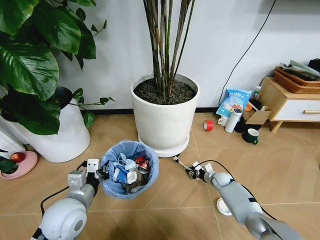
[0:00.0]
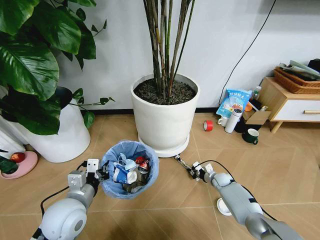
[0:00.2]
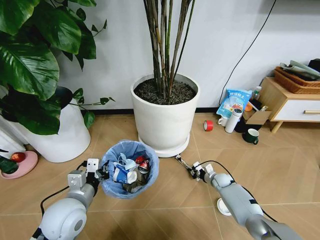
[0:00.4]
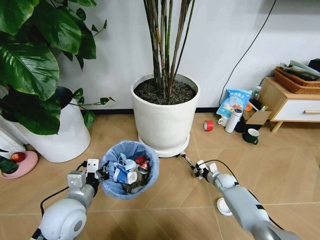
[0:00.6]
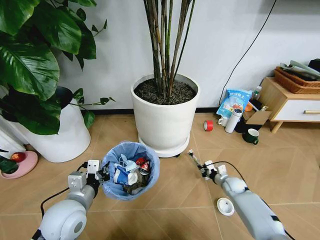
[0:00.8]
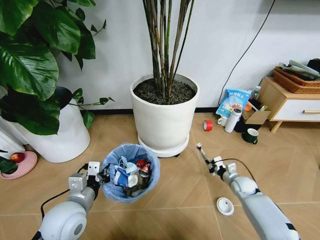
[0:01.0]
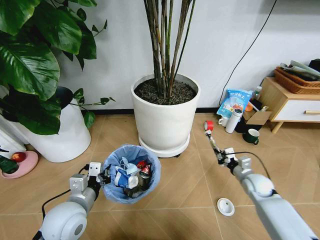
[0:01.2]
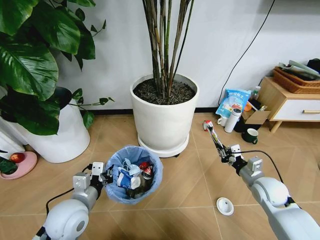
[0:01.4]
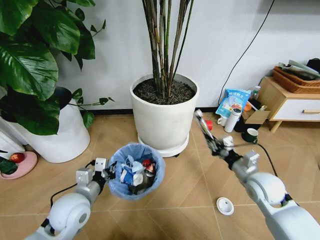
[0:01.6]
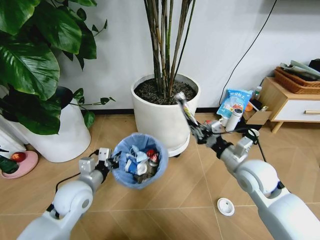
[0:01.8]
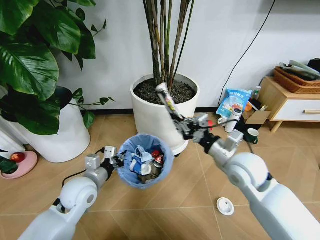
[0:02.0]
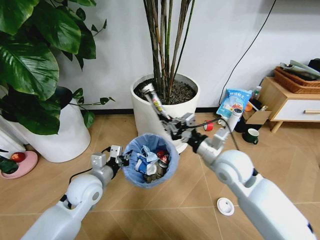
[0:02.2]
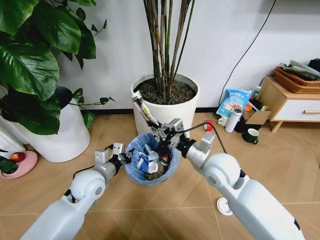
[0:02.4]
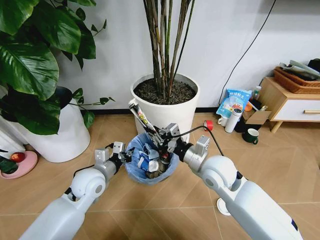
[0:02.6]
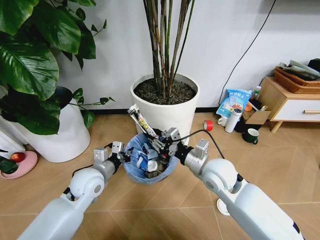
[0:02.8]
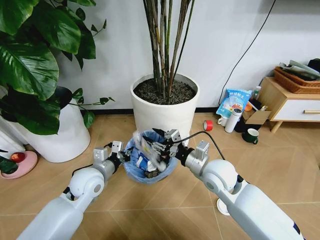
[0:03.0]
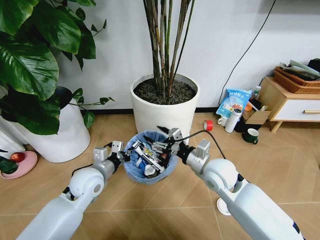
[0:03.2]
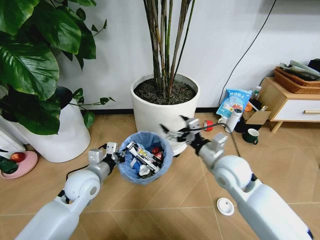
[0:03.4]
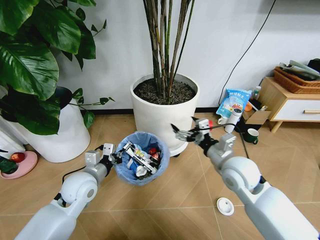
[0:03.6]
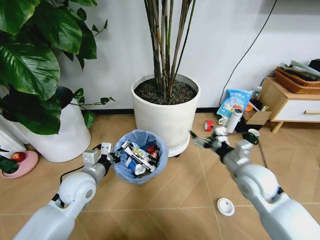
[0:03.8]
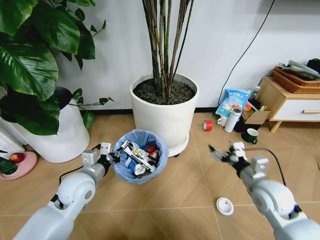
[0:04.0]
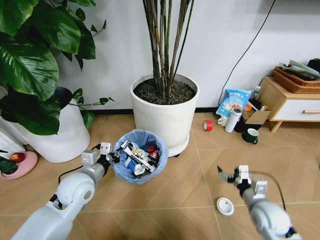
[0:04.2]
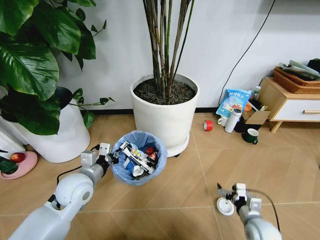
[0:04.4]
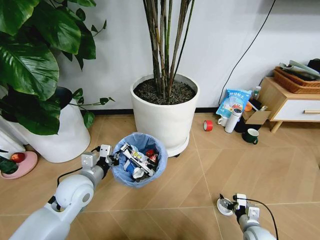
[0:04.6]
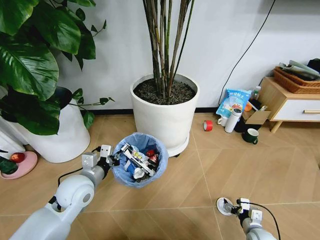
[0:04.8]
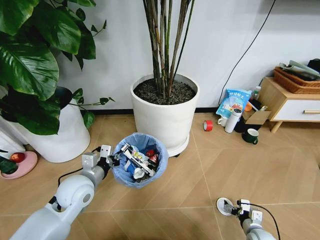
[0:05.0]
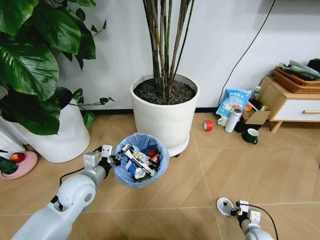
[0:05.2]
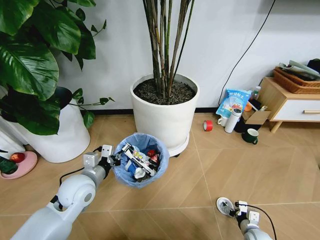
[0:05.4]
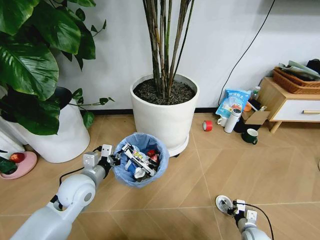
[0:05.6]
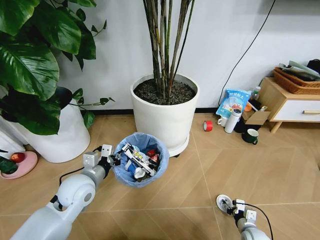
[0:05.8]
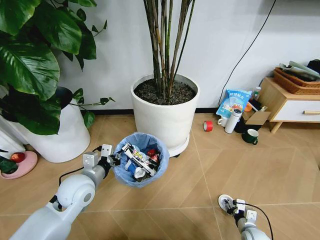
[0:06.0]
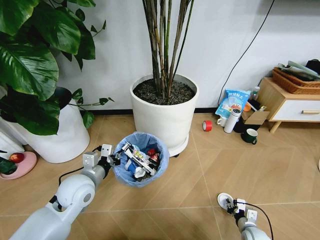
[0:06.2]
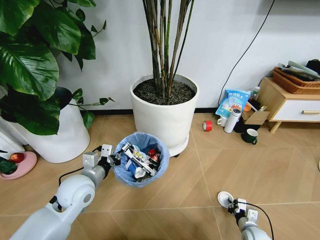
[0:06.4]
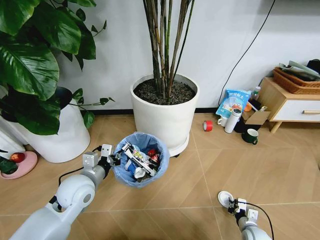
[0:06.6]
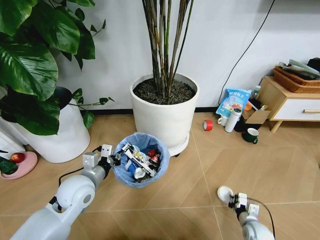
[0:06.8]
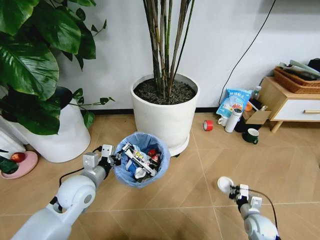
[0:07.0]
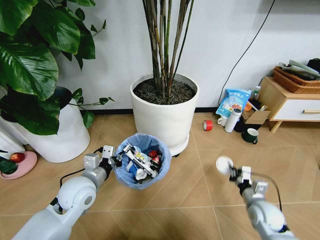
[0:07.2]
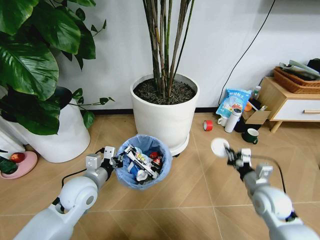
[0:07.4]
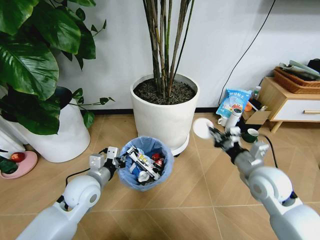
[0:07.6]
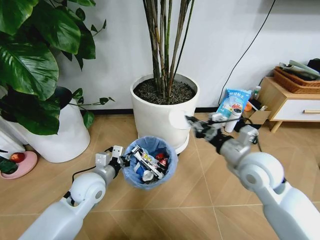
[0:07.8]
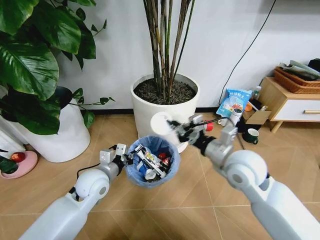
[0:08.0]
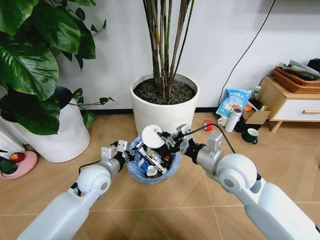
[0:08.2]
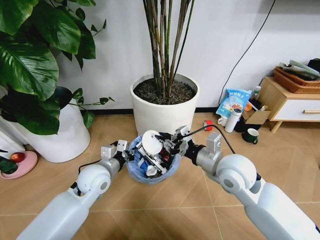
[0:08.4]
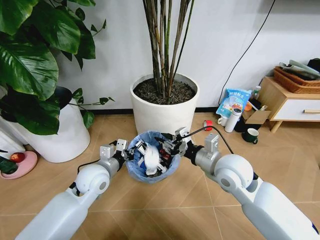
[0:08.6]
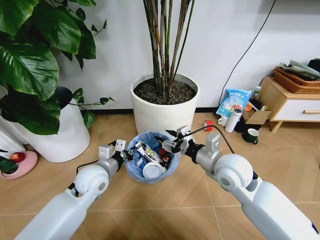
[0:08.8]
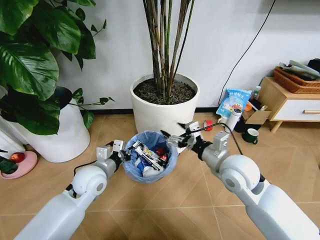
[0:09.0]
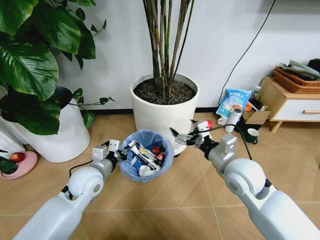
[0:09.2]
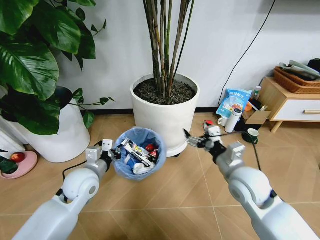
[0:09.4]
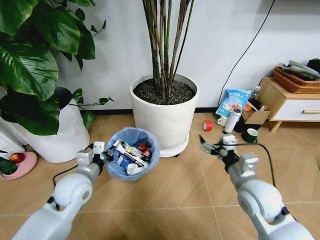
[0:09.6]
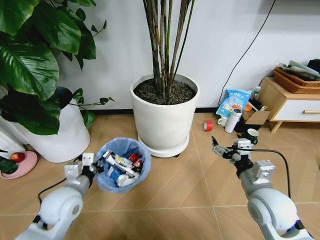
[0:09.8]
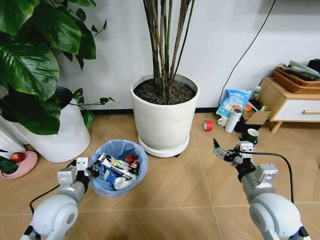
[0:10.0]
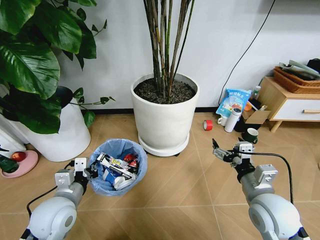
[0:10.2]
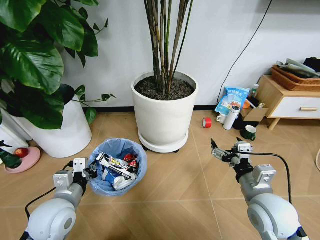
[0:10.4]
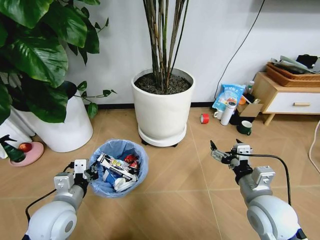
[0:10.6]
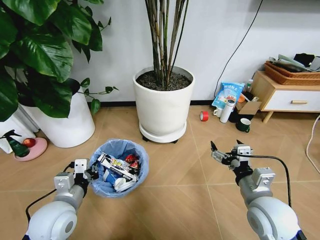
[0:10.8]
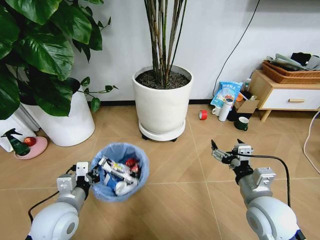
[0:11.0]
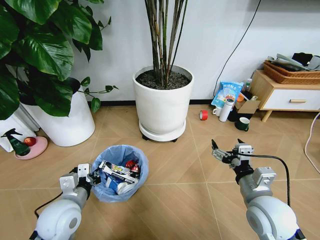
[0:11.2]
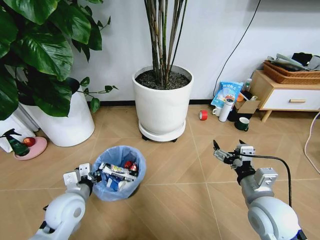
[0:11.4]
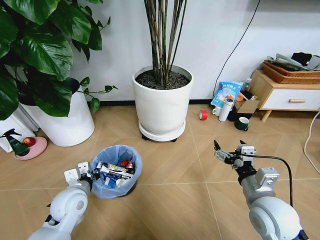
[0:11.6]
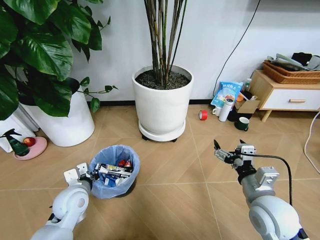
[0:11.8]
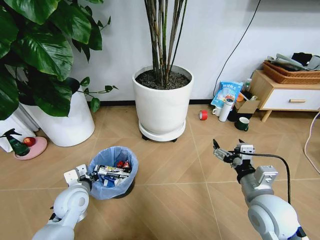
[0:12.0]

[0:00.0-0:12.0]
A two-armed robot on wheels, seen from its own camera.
Task of the whole recording: Pick up the trash bin and place the garbage on the floor into it.
0:00.0 to 0:01.6: The right gripper heads upward and backward, covering some 30 cm.
0:01.6 to 0:03.0: The left gripper heads forward, covering about 10 cm, while the right gripper is displaced to the left by approximately 15 cm, and opens.
0:03.0 to 0:04.4: The right gripper travels downward, to the right and backward by some 30 cm, and opens up.
0:04.4 to 0:06.0: The right gripper heads downward, covering about 10 cm, and closes up.
0:06.0 to 0:07.6: The right gripper moves upward, about 35 cm, and closes up.
0:07.6 to 0:09.0: The right gripper travels to the left by some 10 cm, and opens its fingers.
0:09.0 to 0:10.4: The right gripper is displaced backward and to the right by some 10 cm. The left gripper is displaced backward and to the left by some 10 cm.
0:10.4 to 0:12.0: The left gripper moves downward and forward, roughly 10 cm.

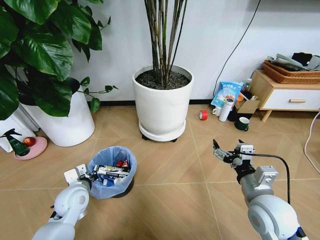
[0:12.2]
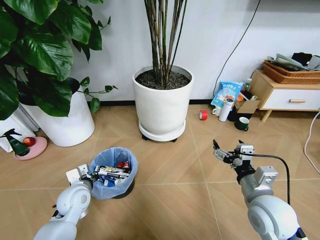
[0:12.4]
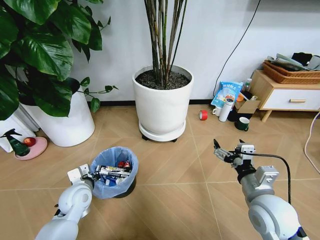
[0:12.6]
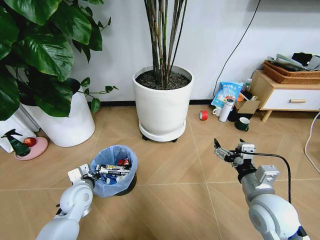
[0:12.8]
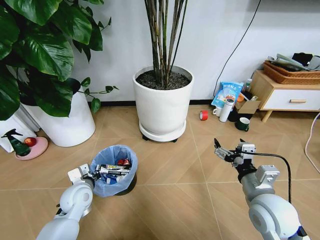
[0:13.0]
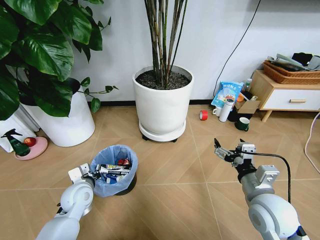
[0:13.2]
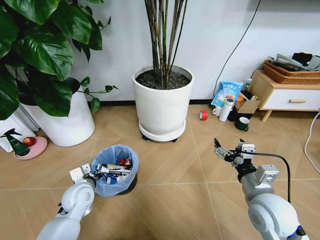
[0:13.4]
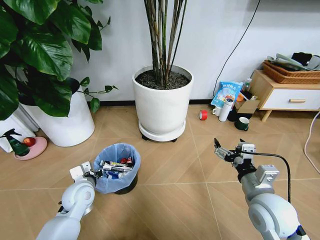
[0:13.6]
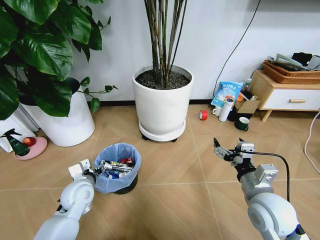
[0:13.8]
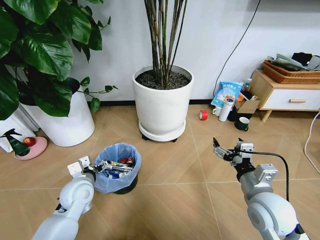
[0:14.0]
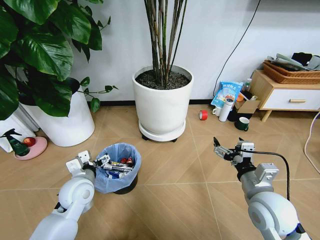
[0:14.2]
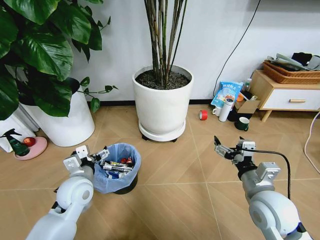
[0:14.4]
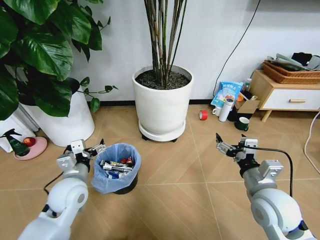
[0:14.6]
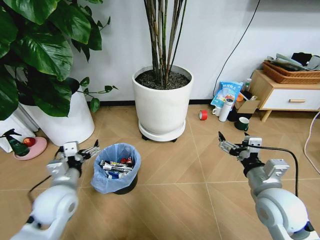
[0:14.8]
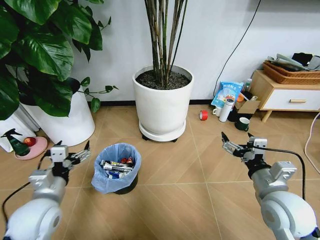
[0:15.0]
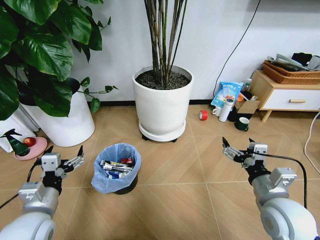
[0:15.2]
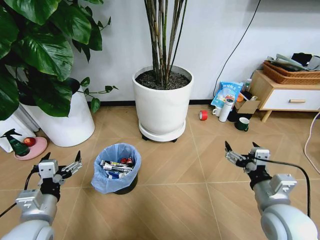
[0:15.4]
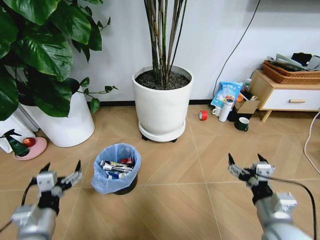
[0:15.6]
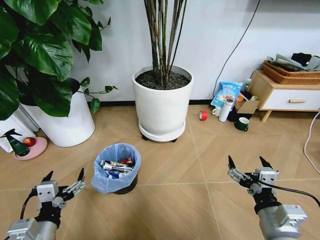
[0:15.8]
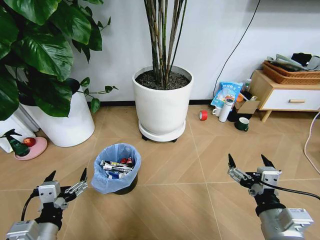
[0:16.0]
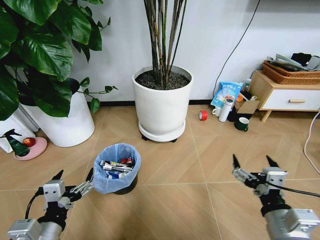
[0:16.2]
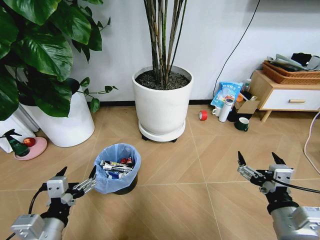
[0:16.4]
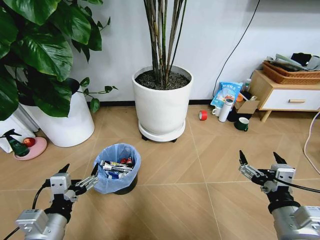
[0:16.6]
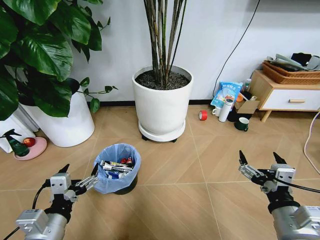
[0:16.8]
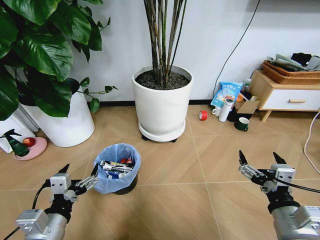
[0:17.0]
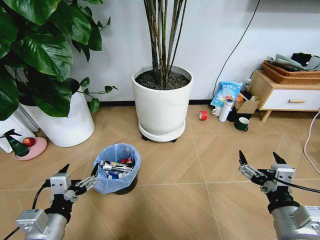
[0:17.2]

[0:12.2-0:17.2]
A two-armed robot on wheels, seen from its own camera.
Task of the whole recording: Pick up the trash bin and place the garbage on the floor into it.
0:12.2 to 0:13.8: The left gripper opens up.
0:13.8 to 0:15.6: The left gripper goes approximately 15 cm backward and upward; the right gripper moves backward, roughly 5 cm.
0:15.6 to 0:17.2: The left gripper ends up some 5 cm from where it was. The right gripper goes approximately 5 cm backward.
